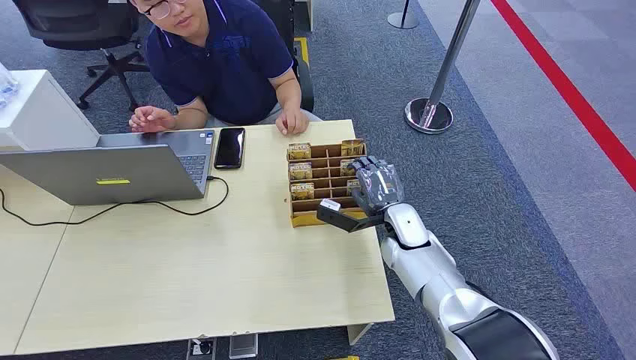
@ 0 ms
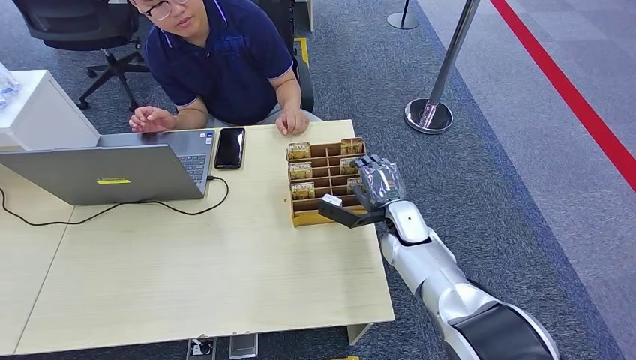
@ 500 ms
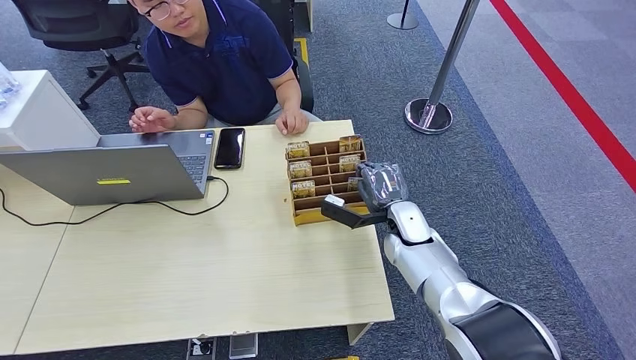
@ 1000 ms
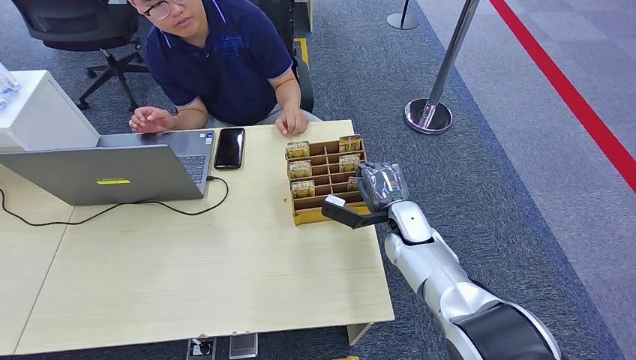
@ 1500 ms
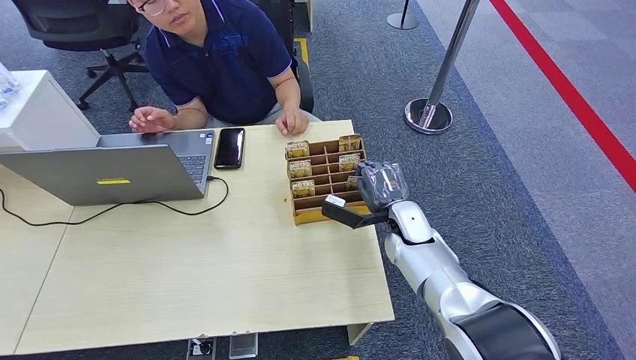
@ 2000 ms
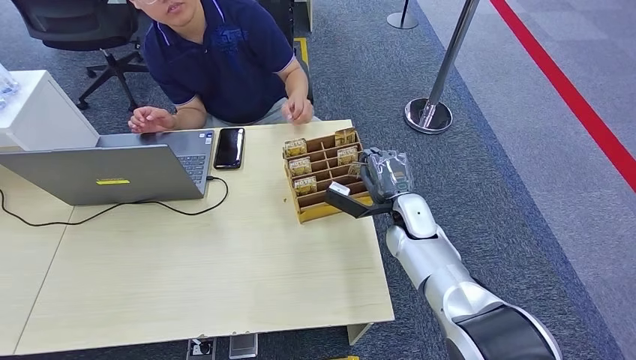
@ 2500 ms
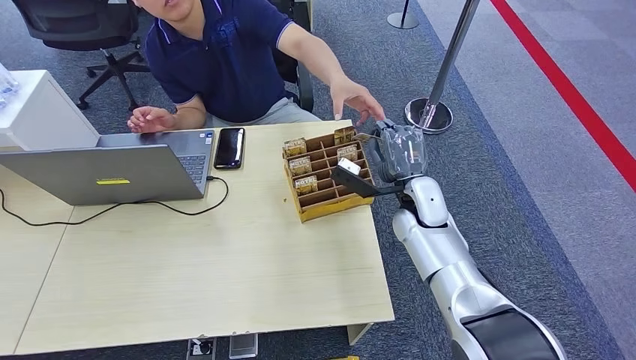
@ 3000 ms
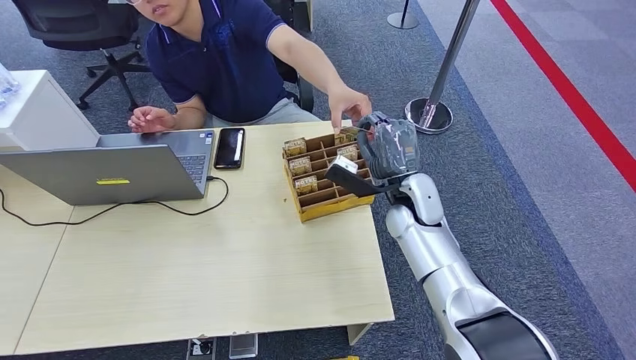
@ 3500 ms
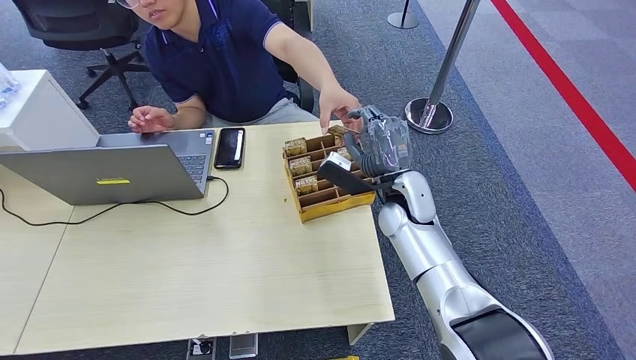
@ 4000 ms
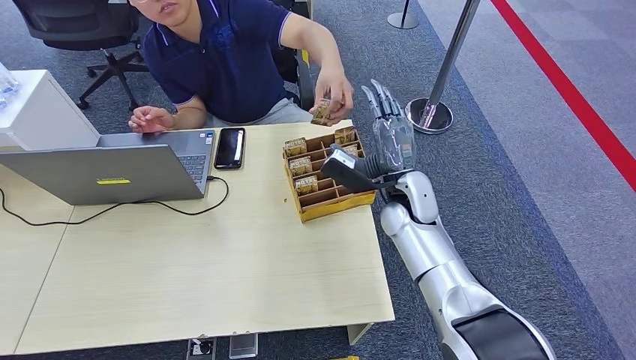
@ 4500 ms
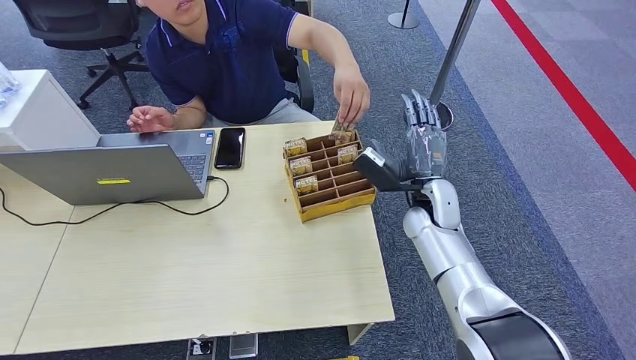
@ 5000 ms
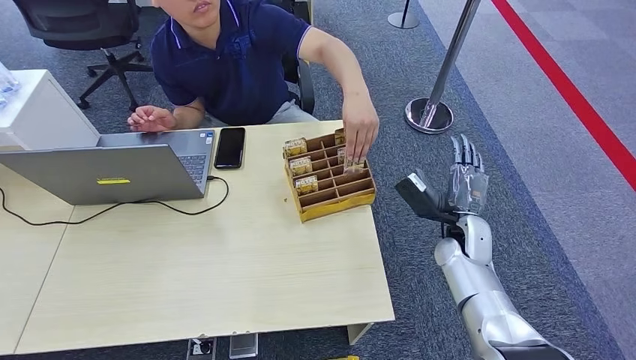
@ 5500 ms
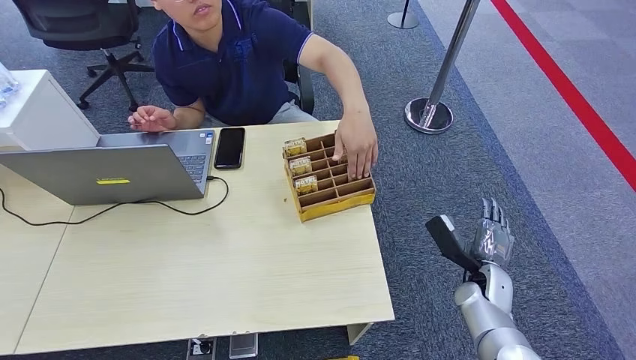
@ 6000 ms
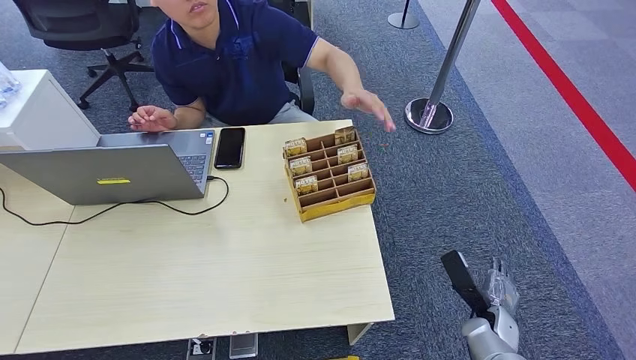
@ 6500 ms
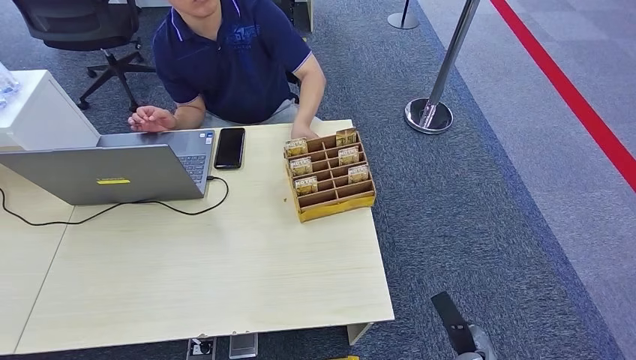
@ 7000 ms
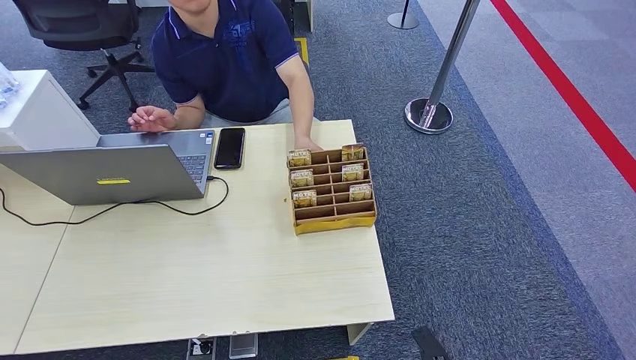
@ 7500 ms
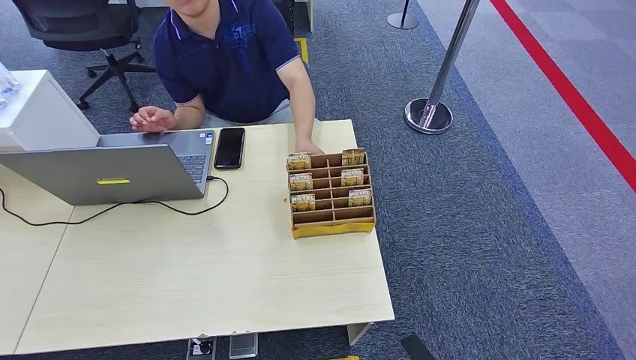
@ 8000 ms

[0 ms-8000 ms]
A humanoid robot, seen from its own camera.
Step, 0 ms to 3000 ms: Pick up the key card from the card box.
Step, 3500 ms to 8000 ms: Hand the key card to the target.
2000 ms to 4000 ms: The right hand is displaced upward by about 10 cm.
4000 ms to 6000 ms: The right hand travels to the right, downward and backward by roughly 25 cm.
6000 ms to 8000 ms: The right hand moves backward, downward and to the left, some 25 cm.
